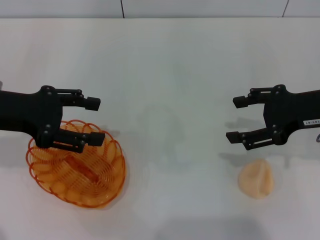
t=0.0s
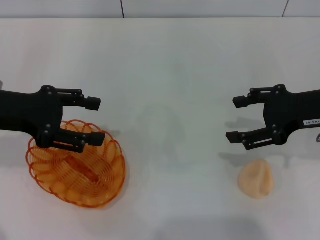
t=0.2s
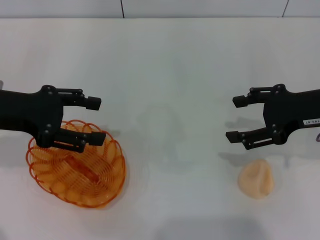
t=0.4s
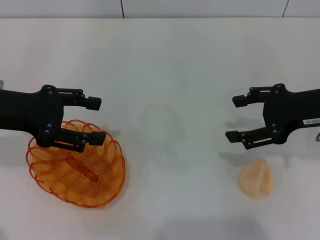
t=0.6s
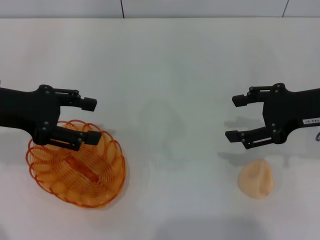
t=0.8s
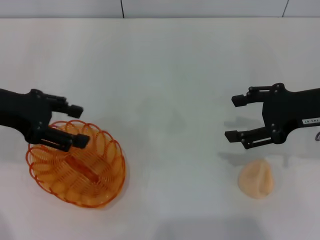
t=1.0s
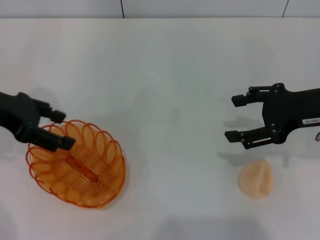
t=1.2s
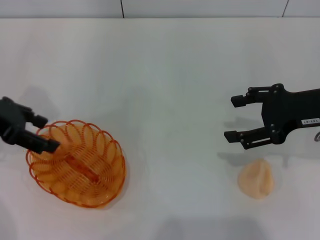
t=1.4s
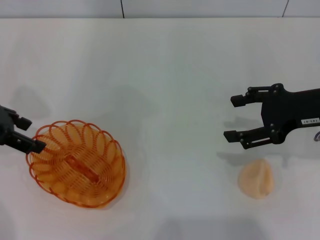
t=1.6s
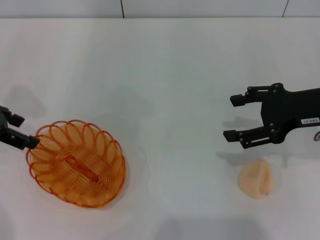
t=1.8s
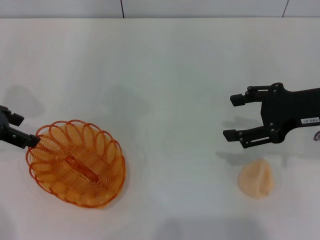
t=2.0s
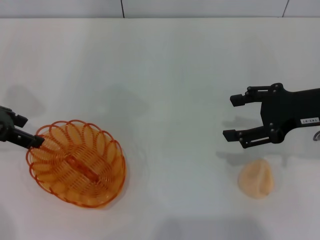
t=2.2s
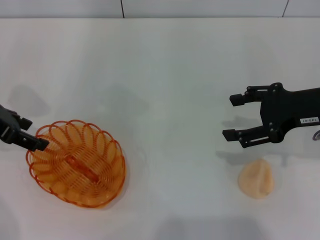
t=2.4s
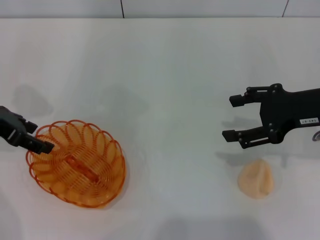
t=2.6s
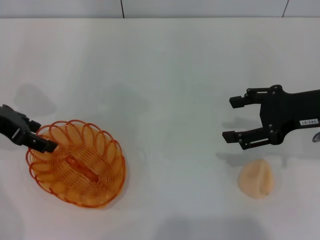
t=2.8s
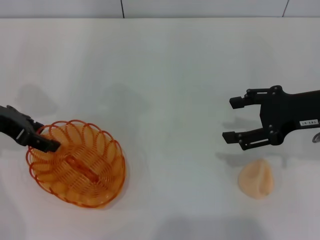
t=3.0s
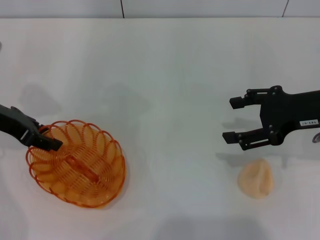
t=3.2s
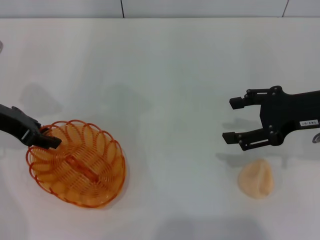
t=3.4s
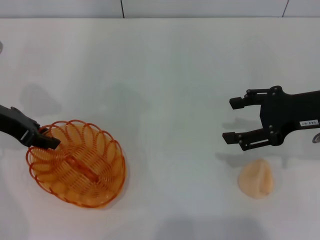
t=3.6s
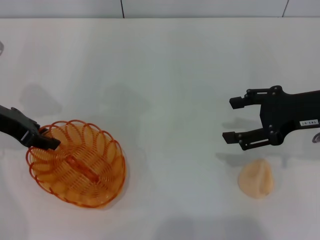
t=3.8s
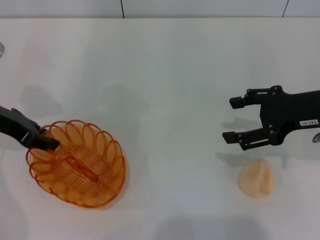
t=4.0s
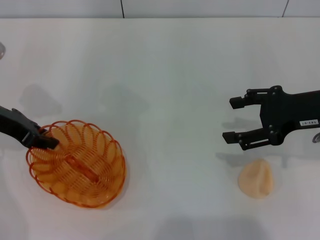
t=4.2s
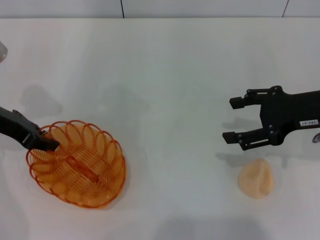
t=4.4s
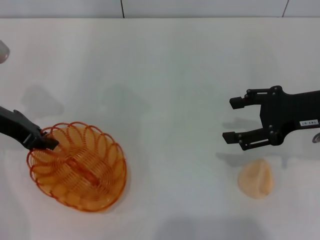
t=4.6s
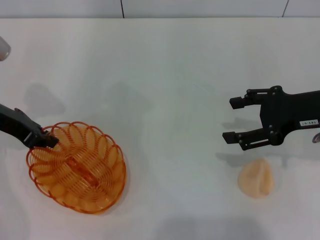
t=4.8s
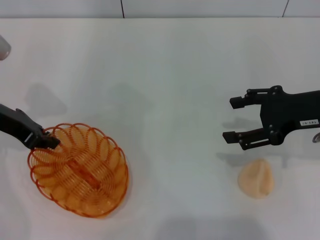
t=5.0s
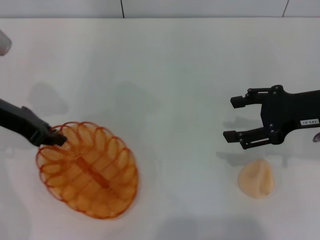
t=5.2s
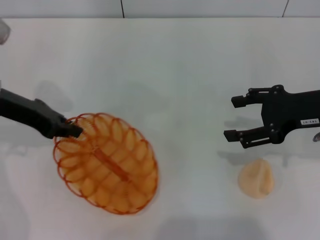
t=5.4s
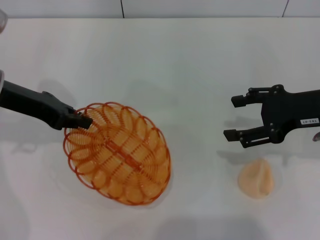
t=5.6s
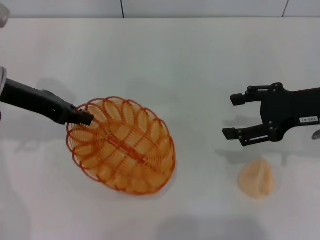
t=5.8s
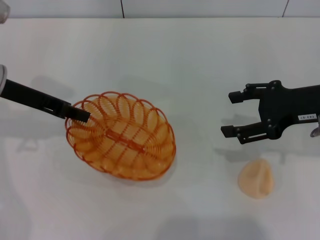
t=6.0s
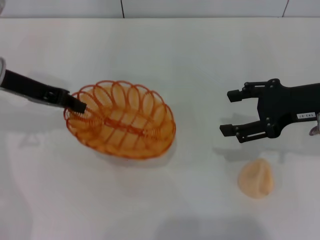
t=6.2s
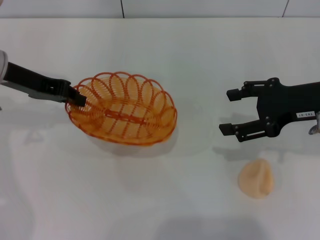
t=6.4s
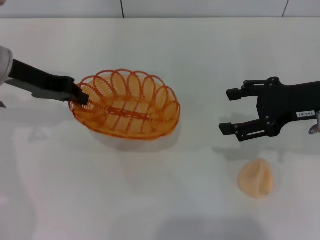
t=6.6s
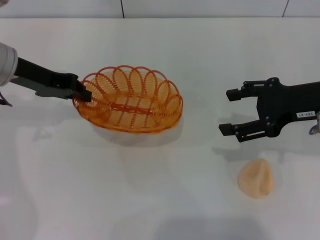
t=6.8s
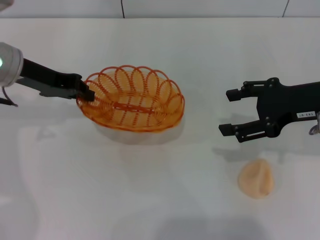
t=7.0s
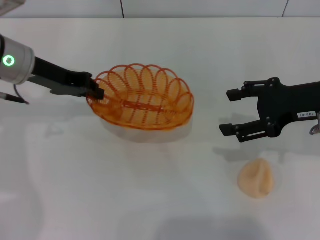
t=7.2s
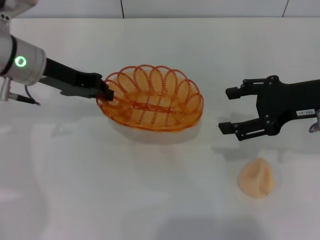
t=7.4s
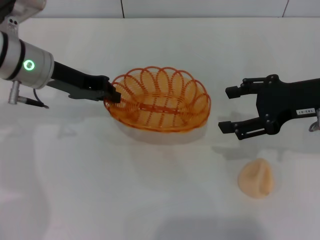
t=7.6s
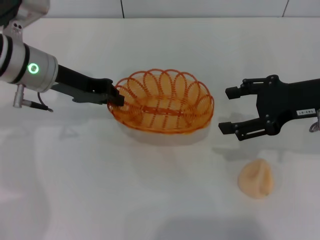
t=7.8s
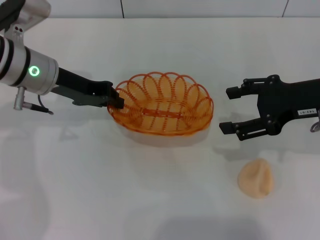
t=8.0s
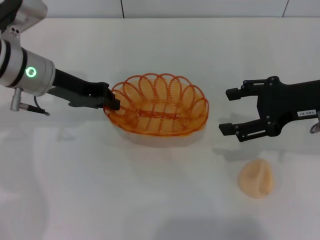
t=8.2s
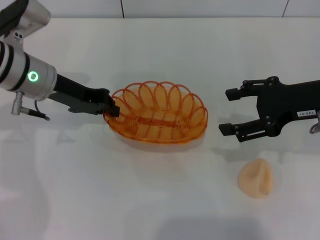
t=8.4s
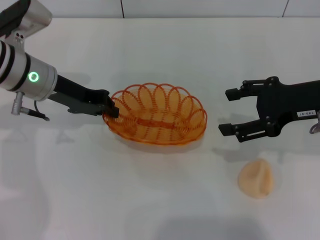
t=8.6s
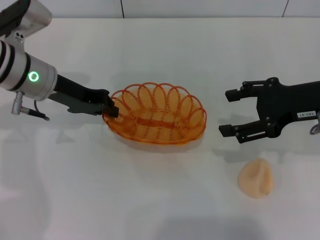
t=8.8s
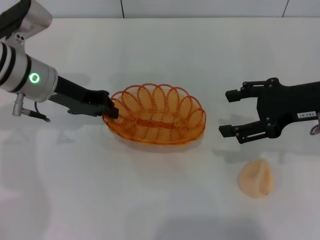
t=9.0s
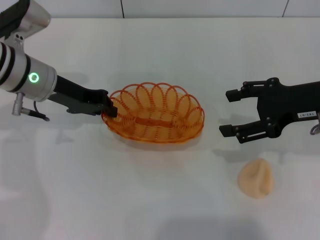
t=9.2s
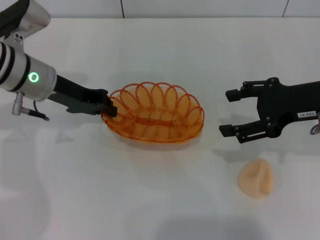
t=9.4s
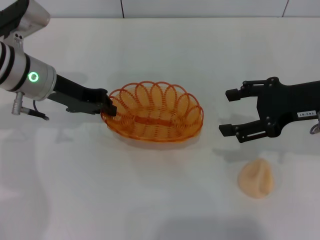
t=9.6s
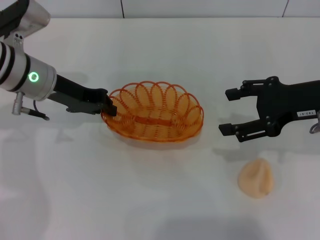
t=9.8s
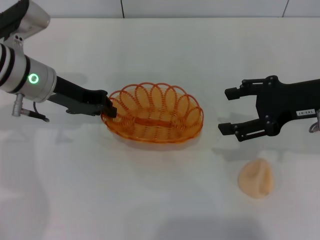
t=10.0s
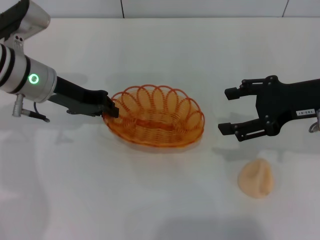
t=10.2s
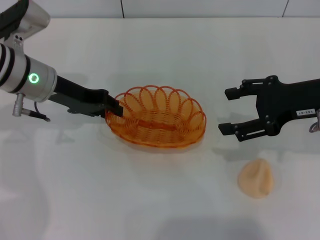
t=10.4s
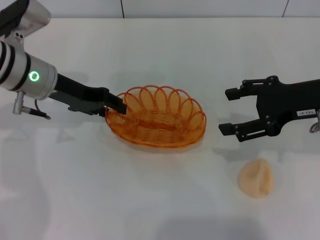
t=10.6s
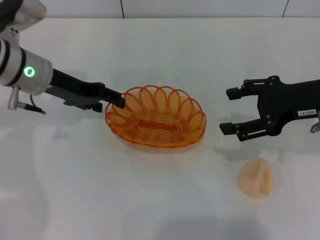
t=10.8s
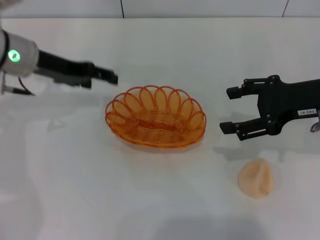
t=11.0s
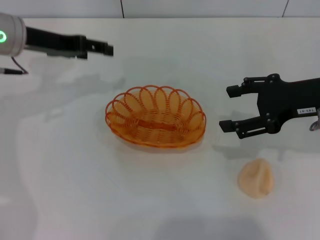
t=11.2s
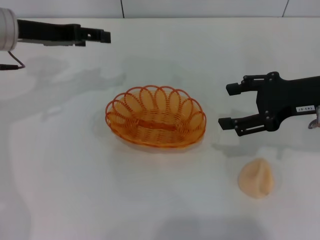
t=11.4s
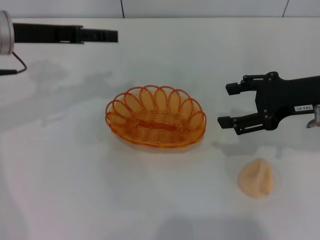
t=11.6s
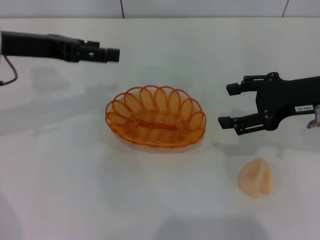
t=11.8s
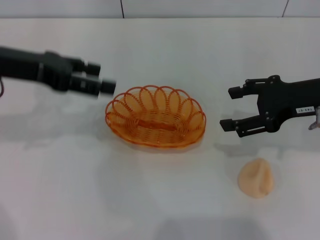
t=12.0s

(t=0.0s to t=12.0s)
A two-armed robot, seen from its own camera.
Step, t=0.0s - t=5.4s: Pick up the basket with the left gripper.
Step, t=5.6s - t=11.4s: Place the basket in the center of view with the left gripper.
t=1.6s - t=3.0s: The grippers move only a little.
t=3.0s - t=4.4s: The left gripper closes up.
t=6.0s - t=7.6s: The left gripper moves to the right, about 5 cm.
t=7.6s - t=9.0s: The grippers move only a little.
t=9.0s - t=10.4s: Neither gripper changes place.
t=10.4s - t=12.0s: The left gripper shifts some 10 cm upward, backward and to the left, and opens.

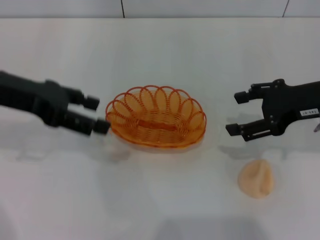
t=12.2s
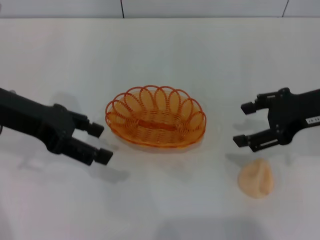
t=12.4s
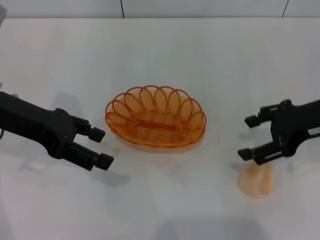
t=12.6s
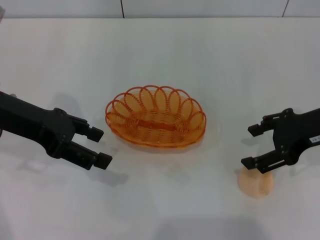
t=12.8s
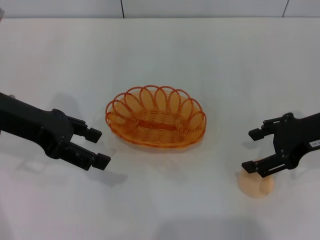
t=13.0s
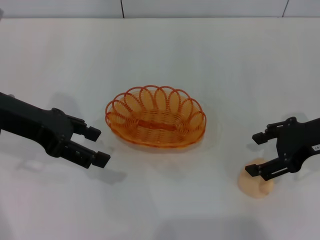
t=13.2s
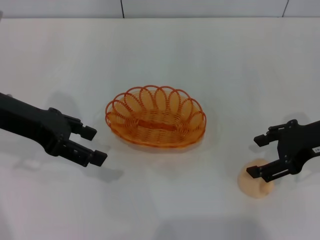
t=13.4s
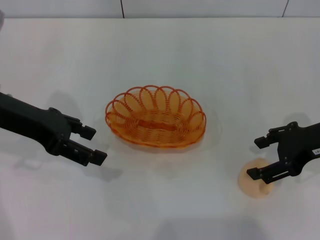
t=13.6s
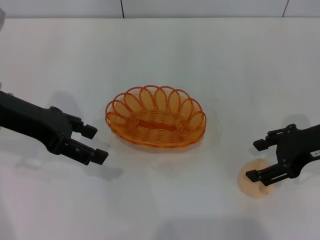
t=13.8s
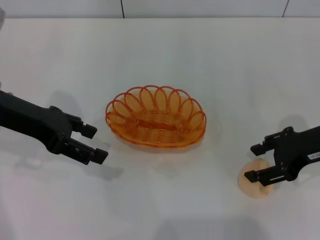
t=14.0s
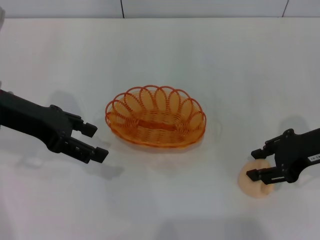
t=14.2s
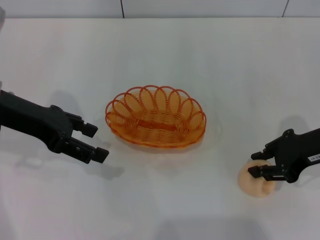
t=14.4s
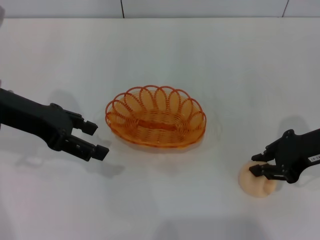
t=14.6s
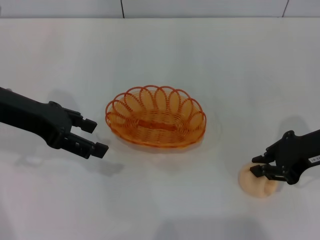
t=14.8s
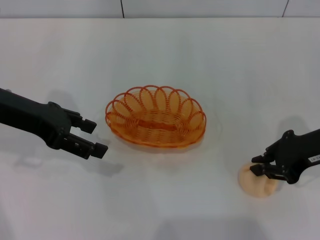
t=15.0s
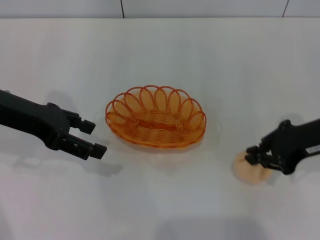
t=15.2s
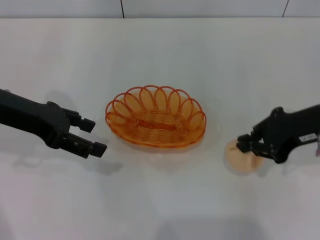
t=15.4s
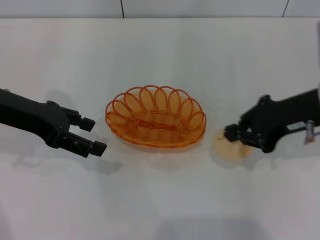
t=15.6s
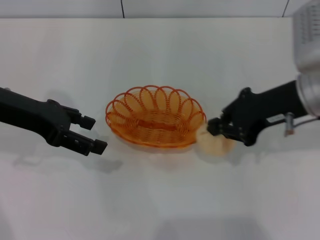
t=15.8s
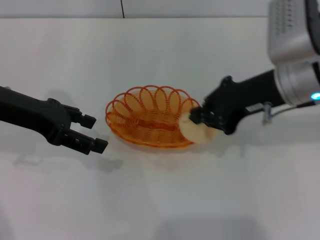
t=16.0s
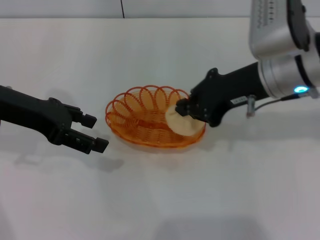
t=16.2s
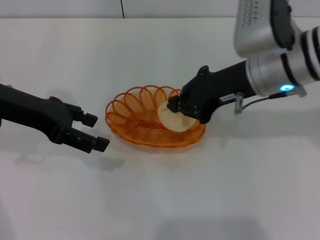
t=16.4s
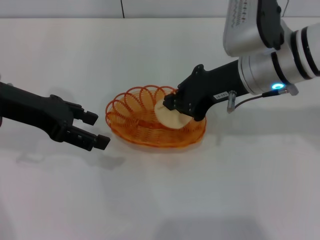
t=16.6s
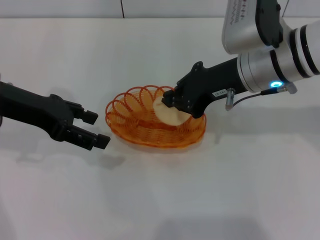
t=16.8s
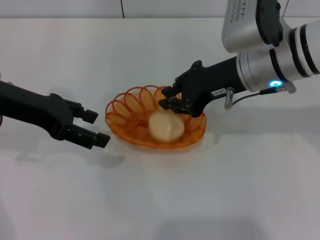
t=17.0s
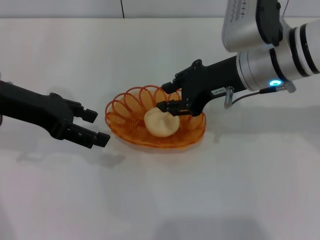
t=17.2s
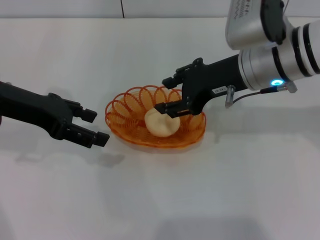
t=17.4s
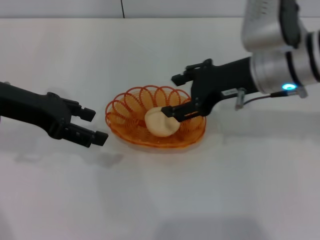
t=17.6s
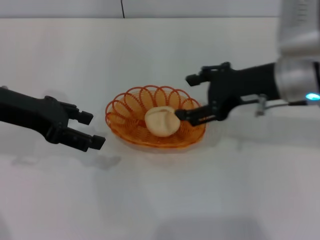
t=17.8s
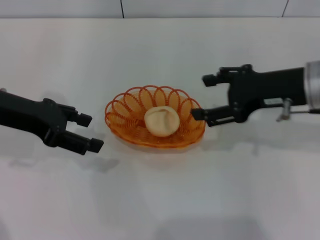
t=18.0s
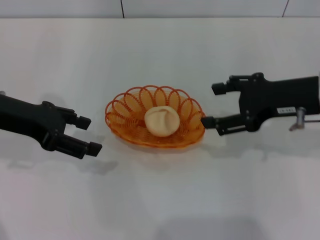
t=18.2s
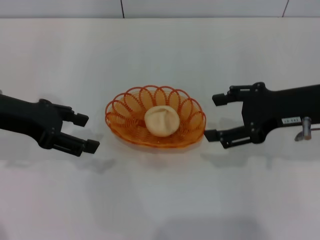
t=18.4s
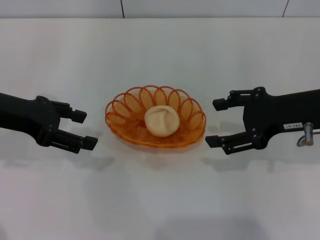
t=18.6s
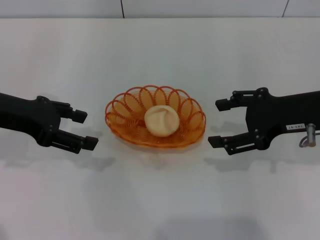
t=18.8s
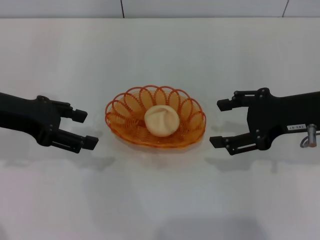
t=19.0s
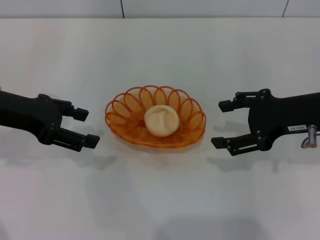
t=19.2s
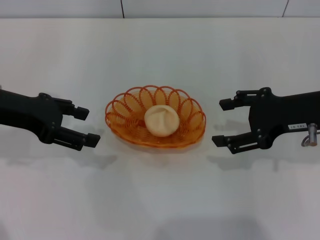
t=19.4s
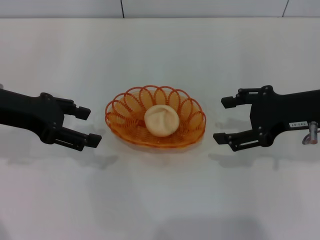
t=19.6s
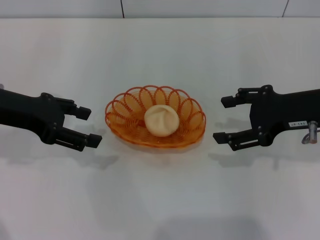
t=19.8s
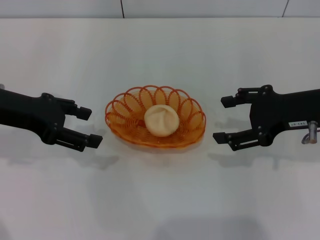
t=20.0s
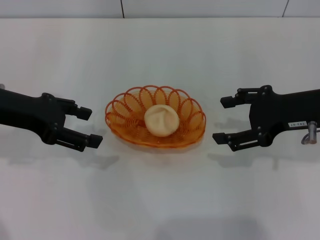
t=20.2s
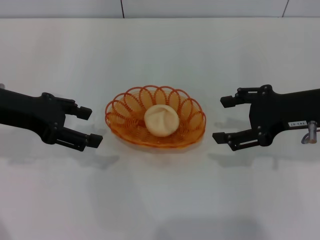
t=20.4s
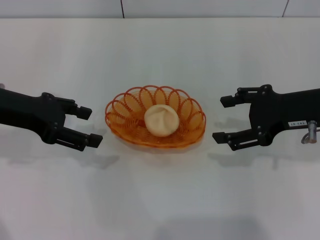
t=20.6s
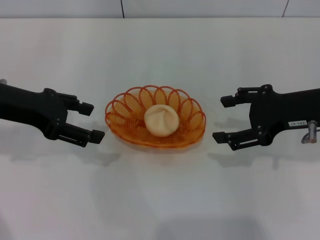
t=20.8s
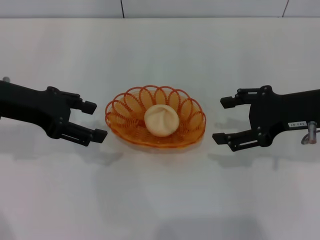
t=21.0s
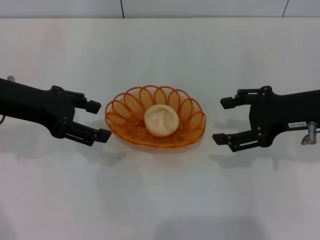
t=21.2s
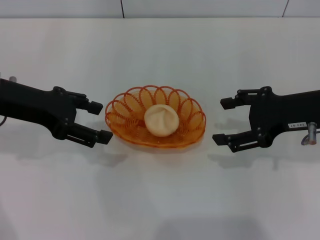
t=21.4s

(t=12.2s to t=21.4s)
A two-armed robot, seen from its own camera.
Step, t=12.2s - t=15.2s: Pick up the egg yolk pastry with the right gripper.
Step, t=15.4s - t=18.0s: Place the egg yolk pastry into the basket with the right gripper.
t=12.2s - t=13.8s: The grippers move only a little.
t=13.8s - t=15.2s: The right gripper closes.
t=15.2s - t=16.8s: The right gripper goes about 15 cm to the left and forward.
t=16.8s - t=18.4s: The right gripper moves to the right, some 10 cm, and opens its fingers.
t=18.4s - t=19.8s: Both grippers stay about where they are.
t=19.8s - t=21.4s: There are only small adjustments of the grippers.
